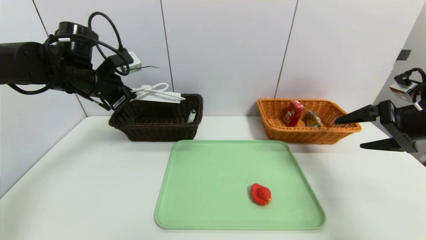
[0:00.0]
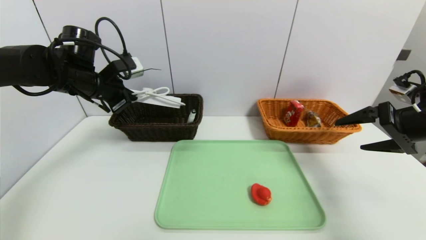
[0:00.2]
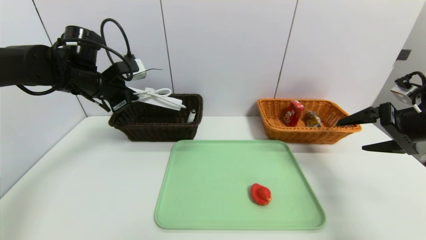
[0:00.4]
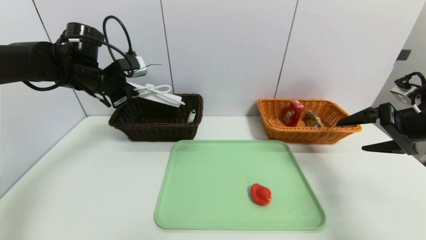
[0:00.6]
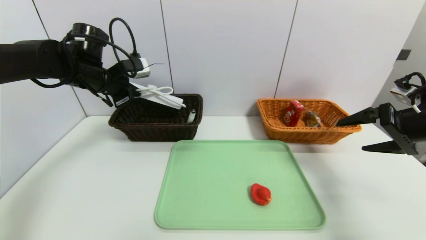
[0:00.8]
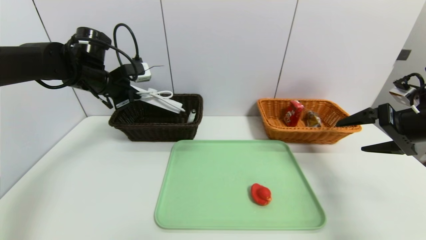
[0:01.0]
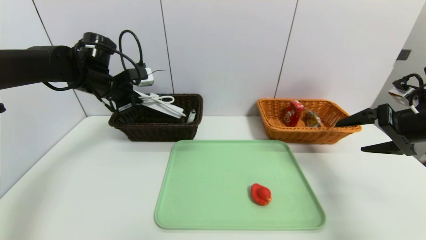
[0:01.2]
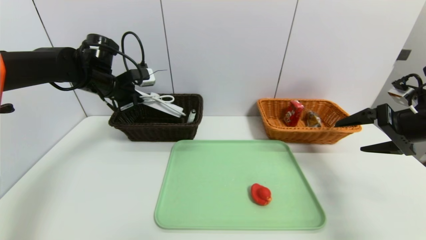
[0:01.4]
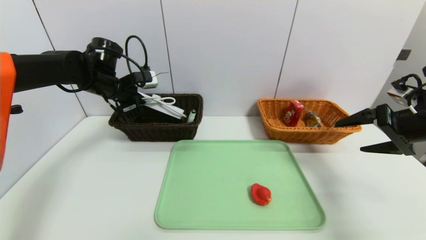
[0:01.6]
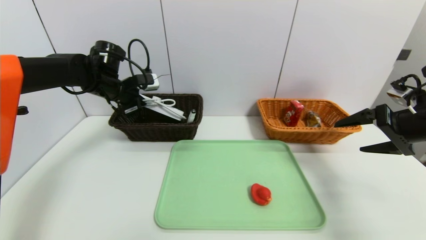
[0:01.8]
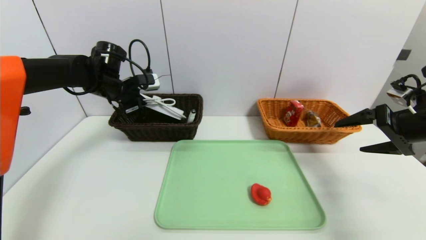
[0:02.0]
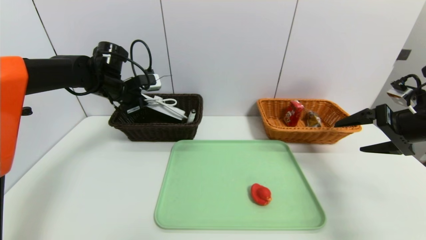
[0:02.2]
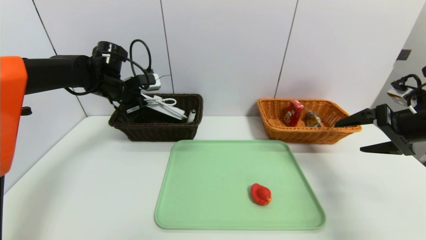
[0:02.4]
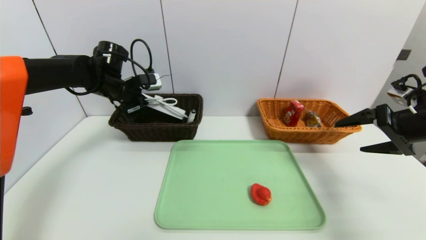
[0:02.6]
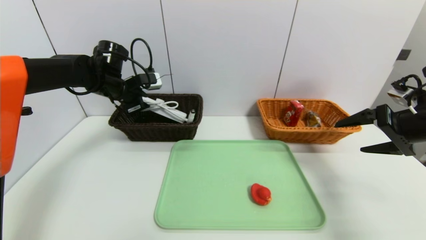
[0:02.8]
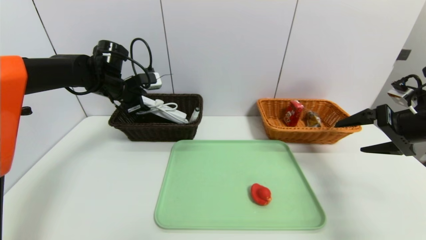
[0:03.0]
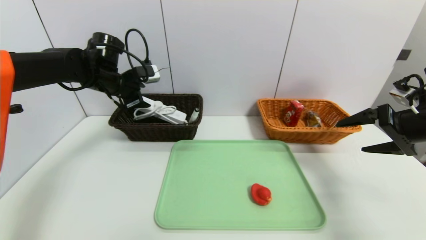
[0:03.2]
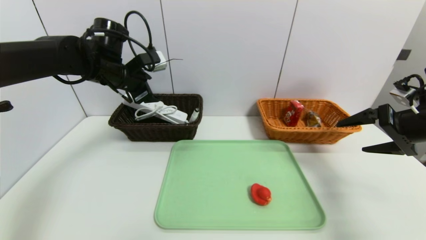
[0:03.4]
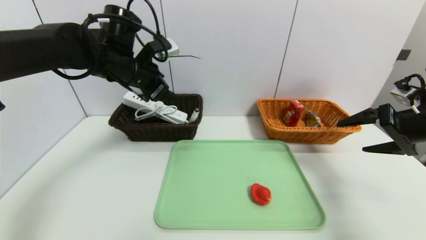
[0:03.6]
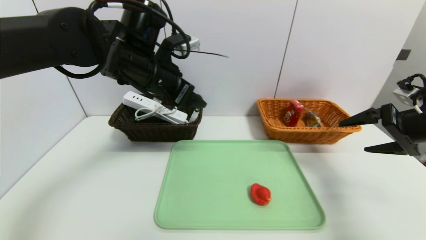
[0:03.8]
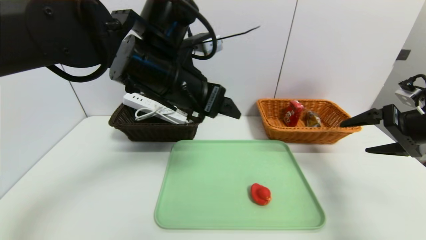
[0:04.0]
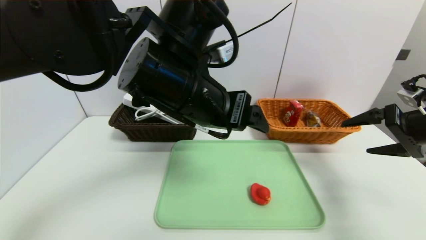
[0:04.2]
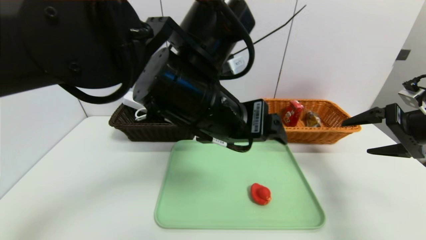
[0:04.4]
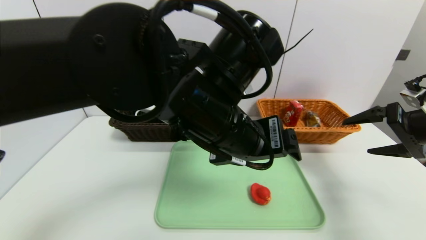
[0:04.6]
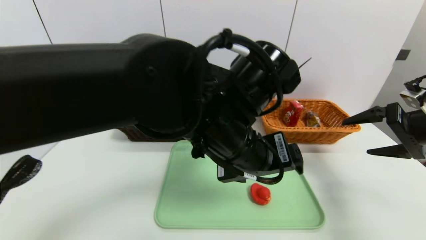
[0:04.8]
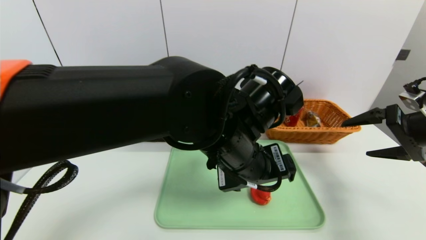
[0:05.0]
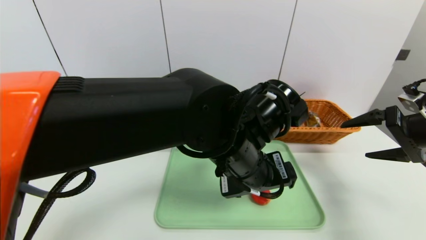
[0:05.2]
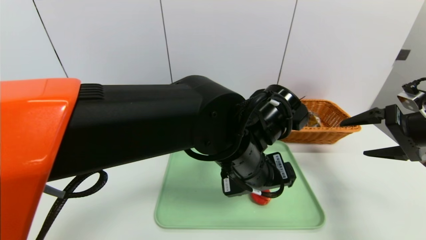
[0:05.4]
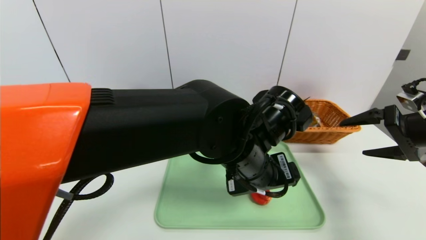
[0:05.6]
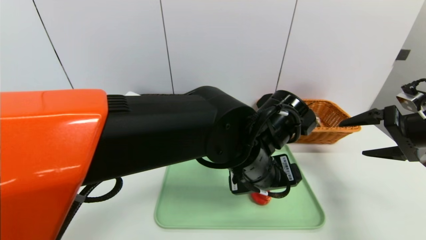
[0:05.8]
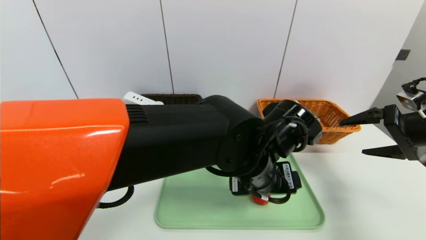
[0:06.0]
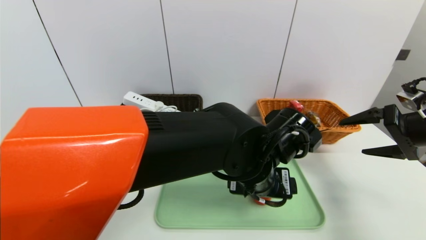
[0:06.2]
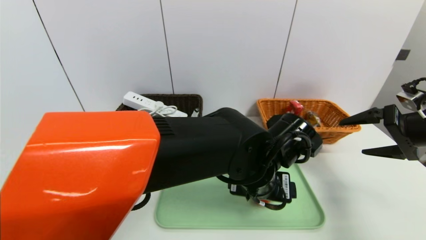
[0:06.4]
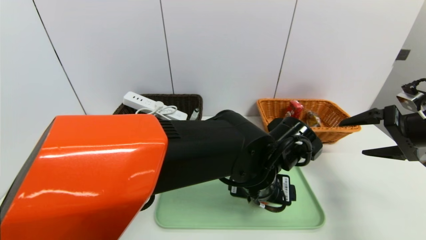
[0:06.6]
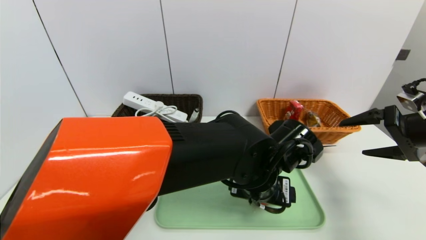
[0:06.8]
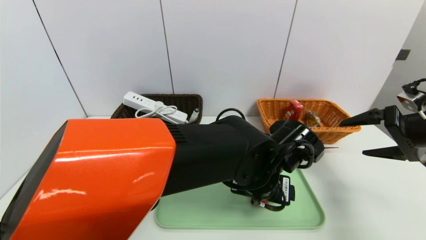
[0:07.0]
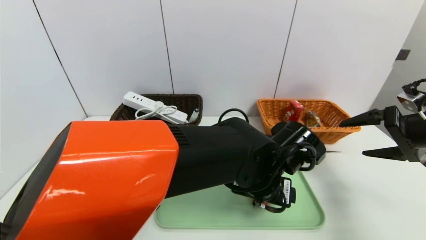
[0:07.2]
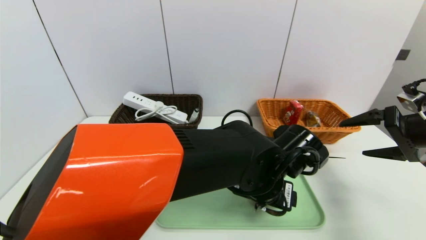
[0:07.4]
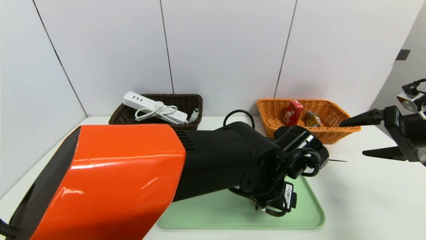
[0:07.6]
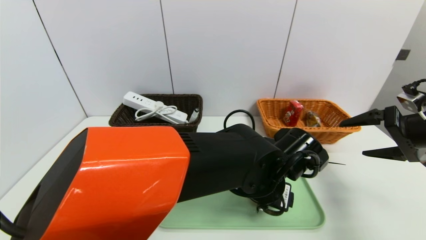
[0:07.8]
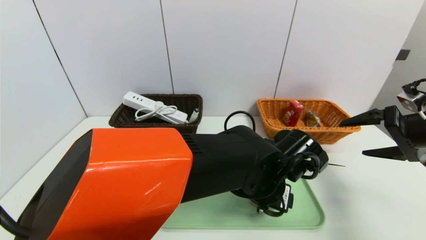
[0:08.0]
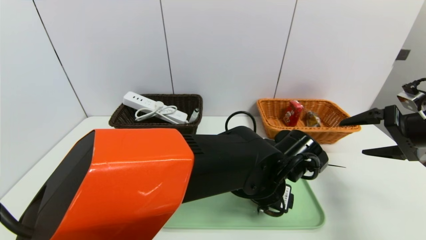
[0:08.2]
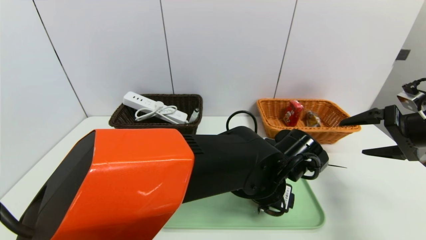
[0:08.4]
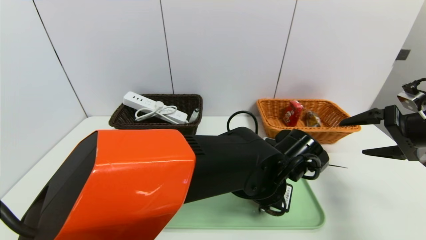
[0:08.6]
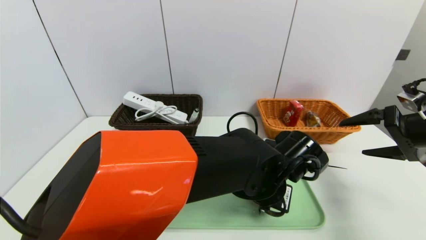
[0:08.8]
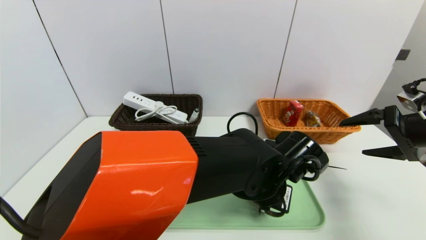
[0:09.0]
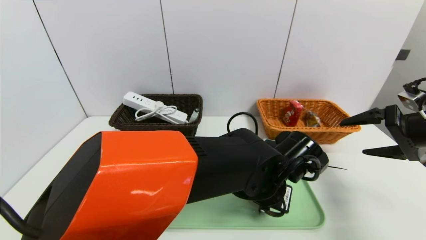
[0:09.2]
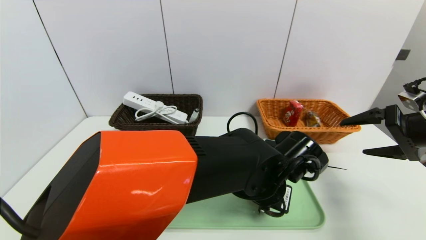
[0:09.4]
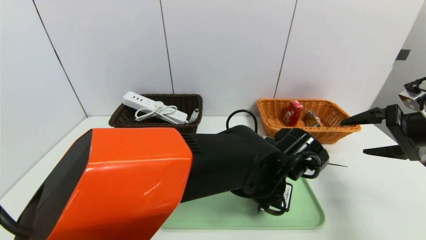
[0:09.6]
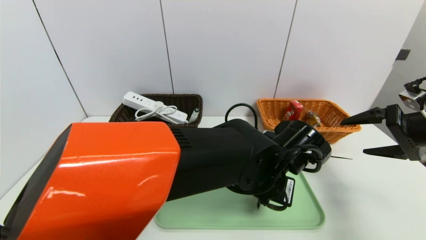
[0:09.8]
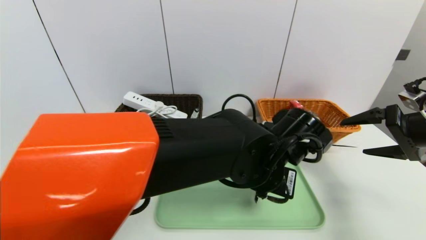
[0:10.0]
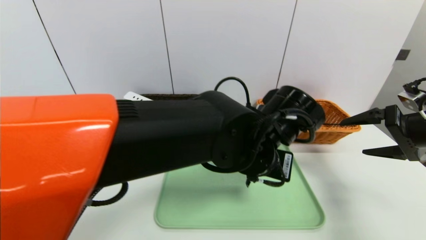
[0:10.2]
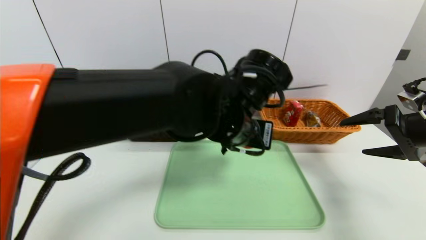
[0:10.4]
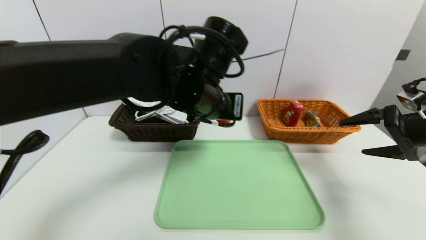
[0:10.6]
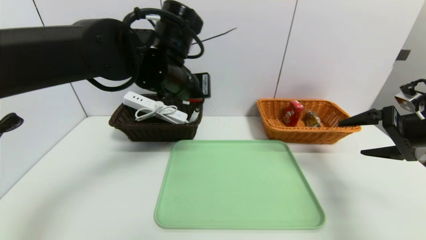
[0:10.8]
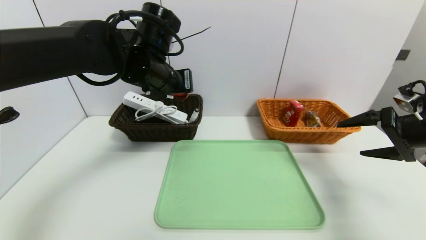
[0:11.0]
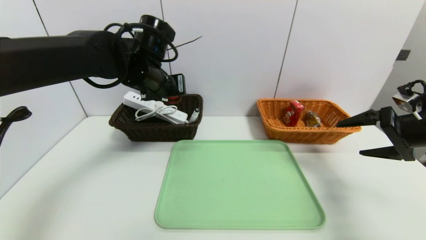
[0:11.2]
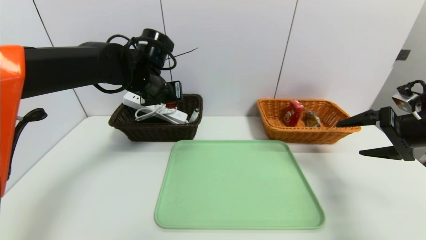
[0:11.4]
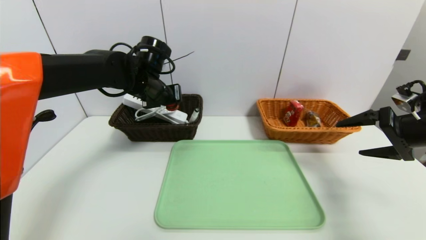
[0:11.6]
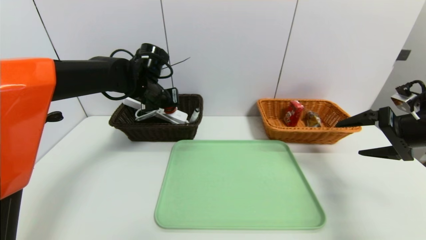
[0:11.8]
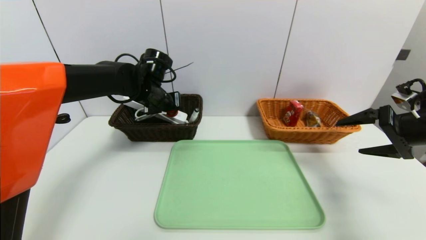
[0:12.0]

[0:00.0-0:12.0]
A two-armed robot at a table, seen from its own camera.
Task of the whole recording: place the food in the right basket with the right gripper, and place the non food items in the left basket with the left gripper.
Step, 0:00.0 to 0:03.6: Grasp the power strip and put it in the left basket.
0:00.0 to 0:01.6: The left gripper moves forward, some 5 cm.
0:01.6 to 0:03.0: The left gripper opens up.
0:03.0 to 0:04.4: The left gripper heads to the right and backward, covering roughly 30 cm, and opens its fingers.
0:04.4 to 0:06.0: The left gripper is displaced downward and to the right by approximately 15 cm.
0:07.6 to 0:09.0: The left gripper closes up.
0:09.0 to 0:10.4: The left gripper travels upward and to the left by some 15 cm.
0:10.4 to 0:12.0: The left gripper is displaced to the left and forward by approximately 25 cm.

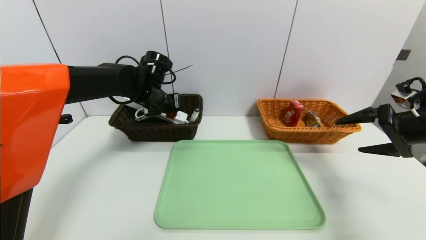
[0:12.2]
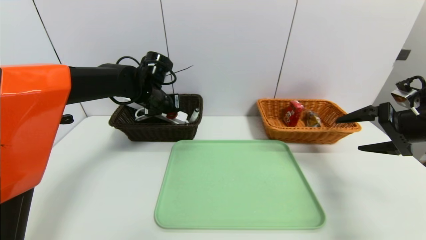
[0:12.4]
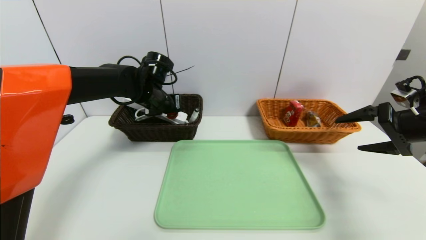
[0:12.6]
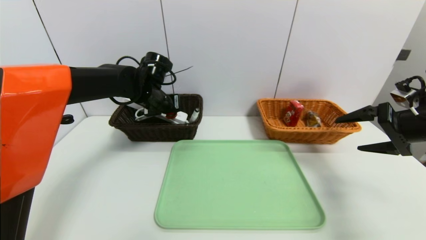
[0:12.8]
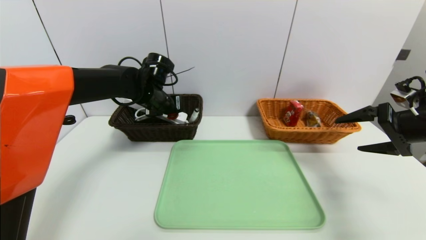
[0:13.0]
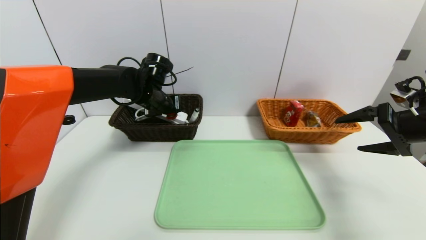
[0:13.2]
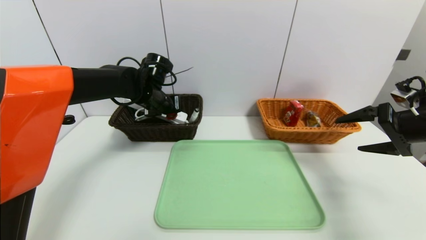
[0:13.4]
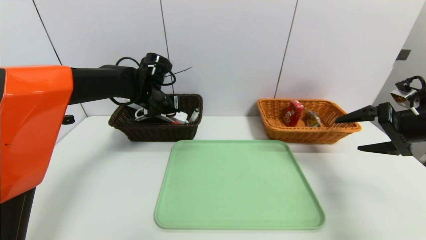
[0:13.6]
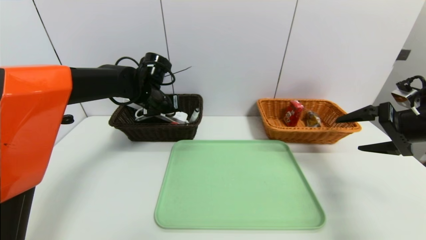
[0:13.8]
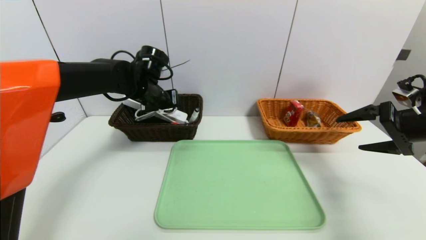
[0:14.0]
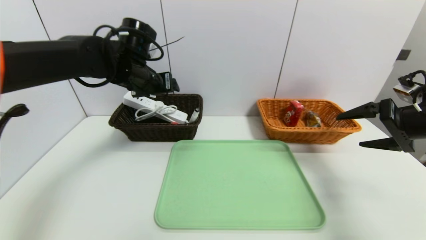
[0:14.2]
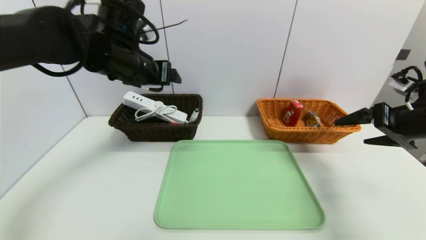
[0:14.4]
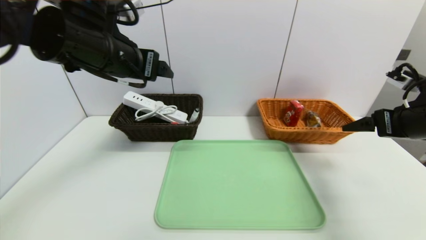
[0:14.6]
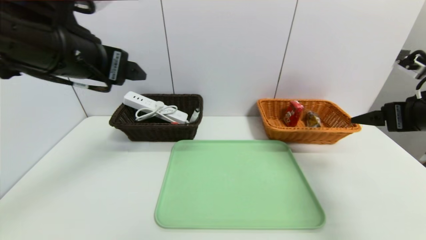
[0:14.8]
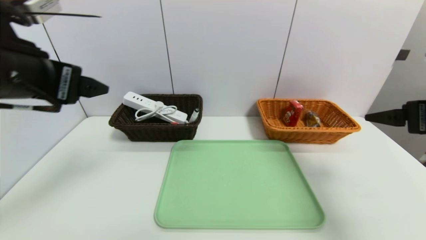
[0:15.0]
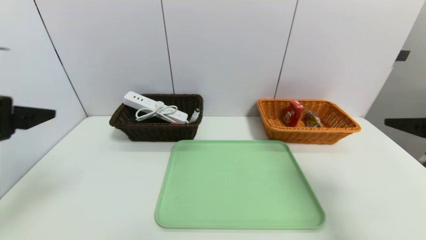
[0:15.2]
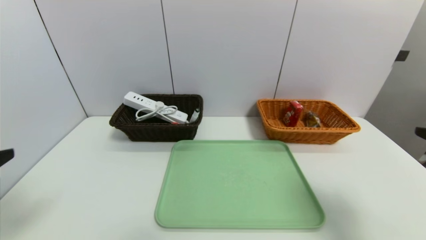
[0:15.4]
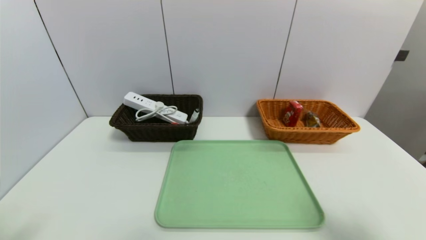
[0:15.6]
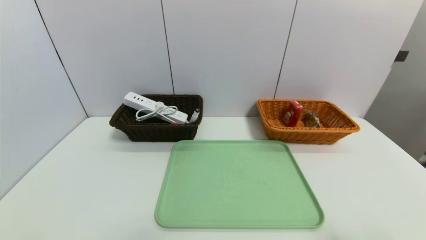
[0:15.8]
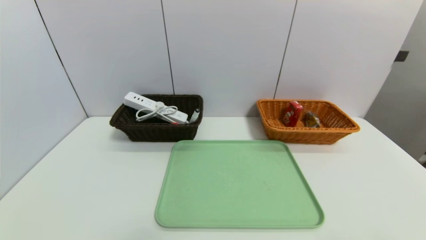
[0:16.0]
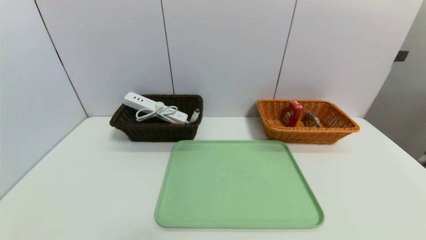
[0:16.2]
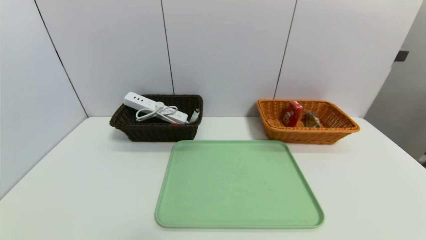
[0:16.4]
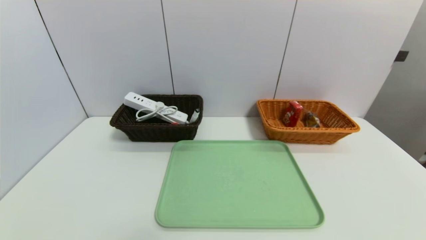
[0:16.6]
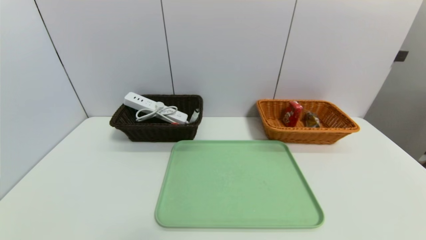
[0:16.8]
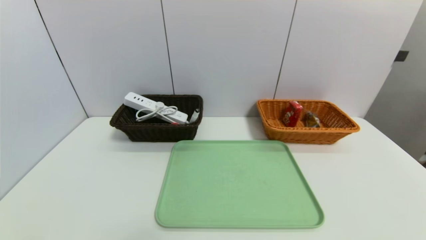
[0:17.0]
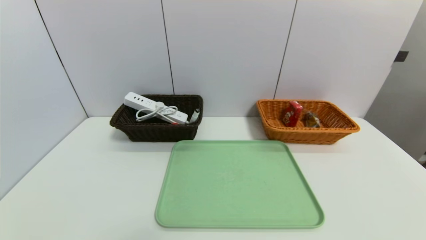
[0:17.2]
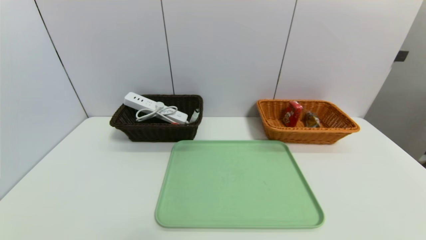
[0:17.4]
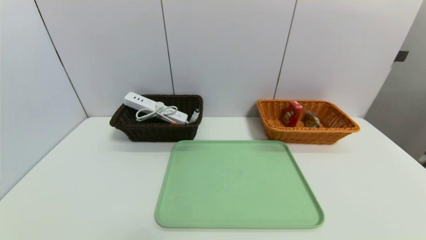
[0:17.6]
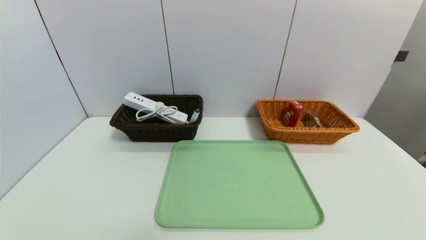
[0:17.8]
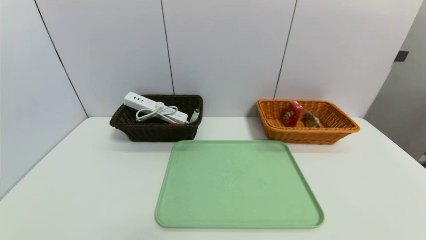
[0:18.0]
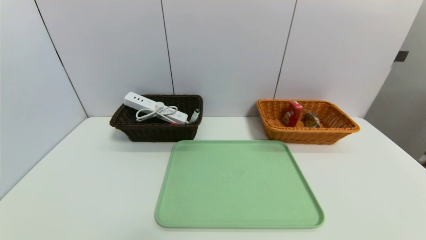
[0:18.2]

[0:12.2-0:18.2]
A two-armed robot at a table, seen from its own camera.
Task of the whole recording: place the food in the right basket with the right gripper, and place the non food items in the left basket with the left gripper.
0:12.2 to 0:13.8: The left gripper opens.
0:13.8 to 0:15.2: The left gripper travels backward and to the left by about 30 cm. The right gripper heads backward and upward, covering roughly 10 cm.
0:15.2 to 0:16.6: The right gripper shifts some 25 cm backward and downward; the left gripper moves downward and backward, some 25 cm.
